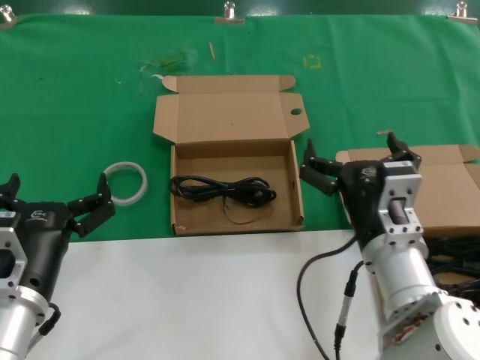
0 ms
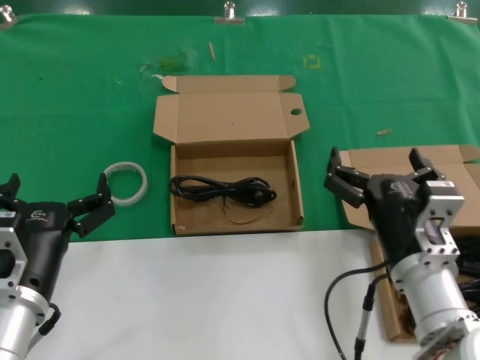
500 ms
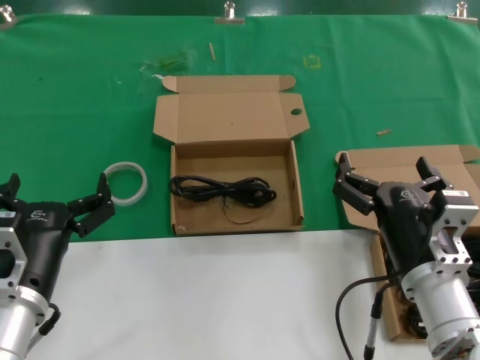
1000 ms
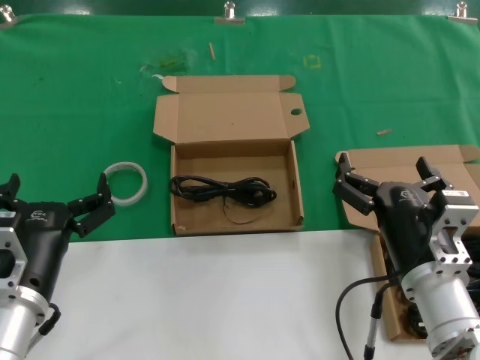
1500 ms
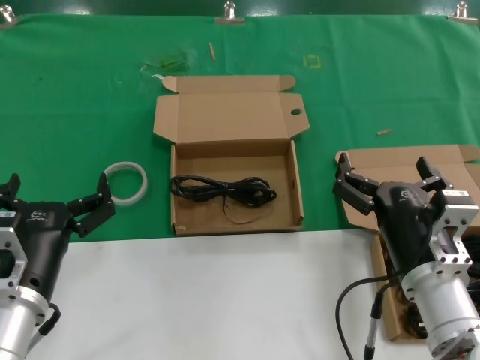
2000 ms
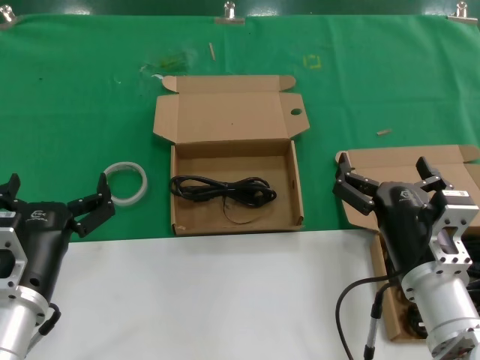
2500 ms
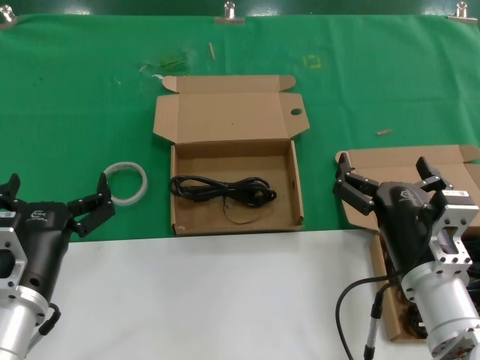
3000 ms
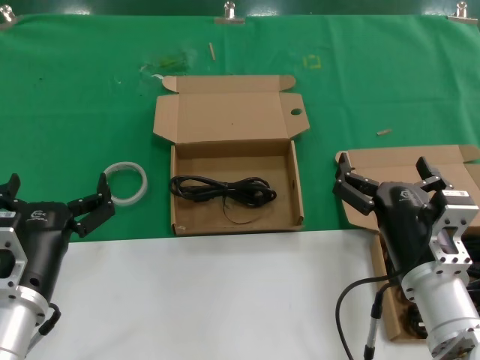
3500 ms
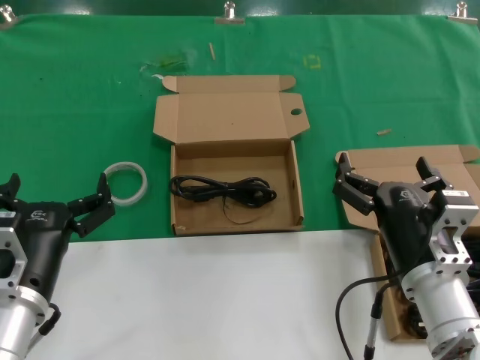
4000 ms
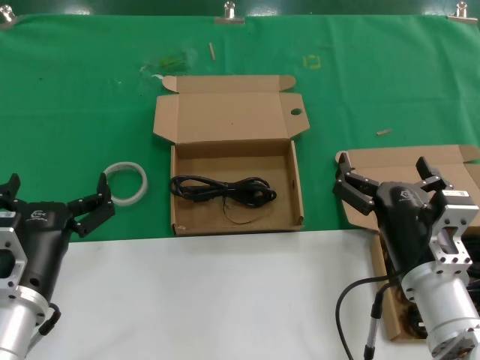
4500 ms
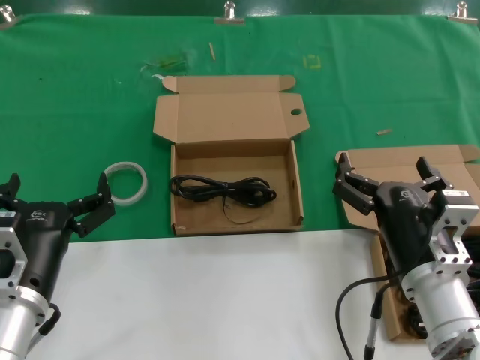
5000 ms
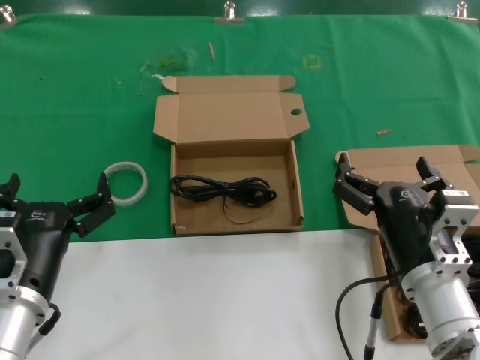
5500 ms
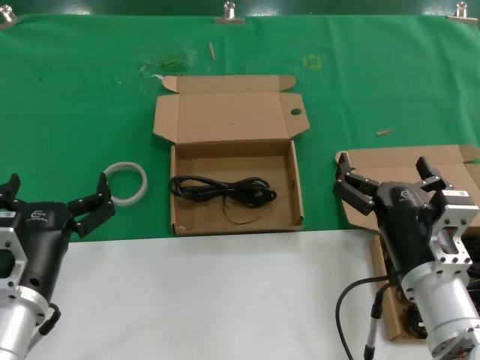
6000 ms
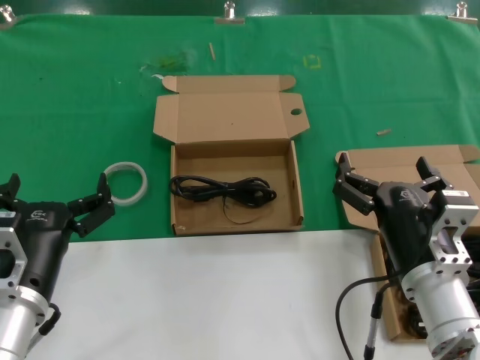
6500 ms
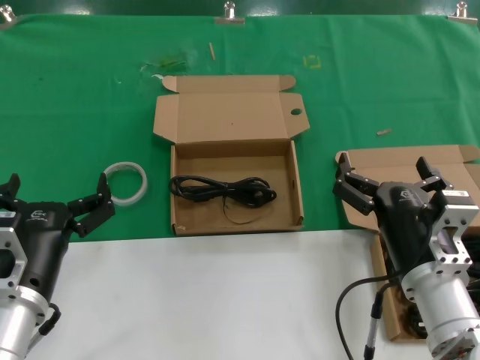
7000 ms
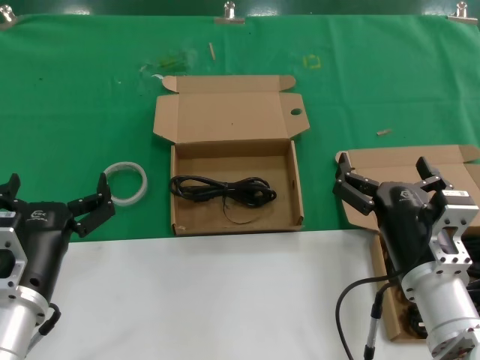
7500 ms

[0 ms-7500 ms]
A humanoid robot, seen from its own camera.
Task of the whole recording: take the parts from the box containing them and put them into an empty box.
0 ms to 2000 ms: The right hand ends up approximately 5 cm from where it was.
2000 ms to 7500 ms: Neither hand changes place.
